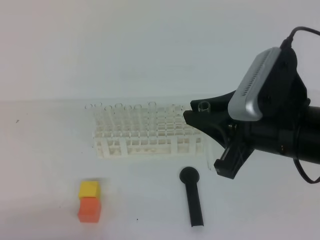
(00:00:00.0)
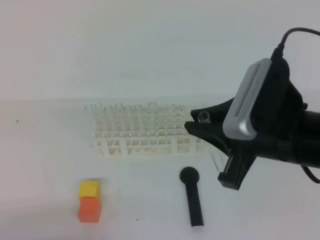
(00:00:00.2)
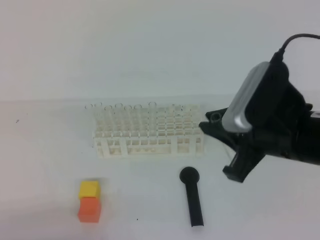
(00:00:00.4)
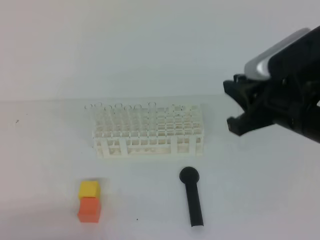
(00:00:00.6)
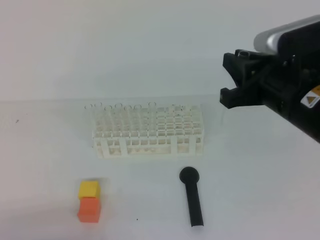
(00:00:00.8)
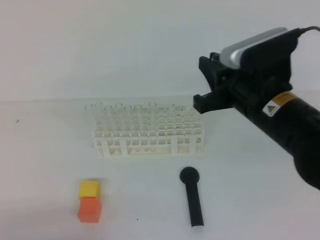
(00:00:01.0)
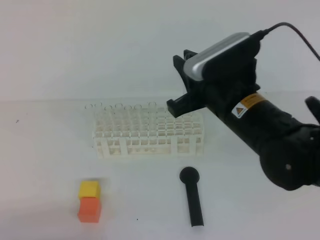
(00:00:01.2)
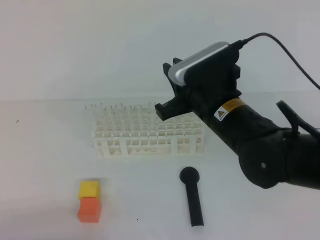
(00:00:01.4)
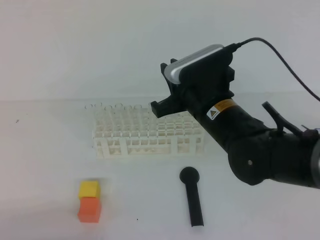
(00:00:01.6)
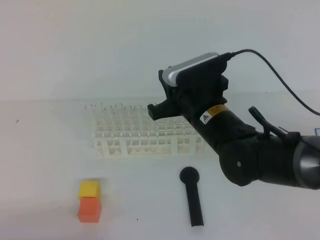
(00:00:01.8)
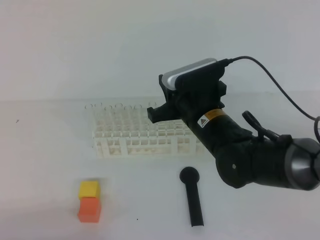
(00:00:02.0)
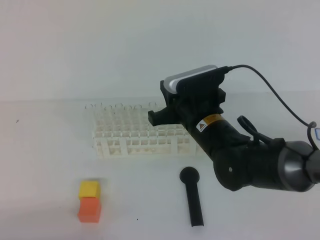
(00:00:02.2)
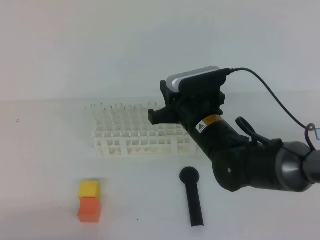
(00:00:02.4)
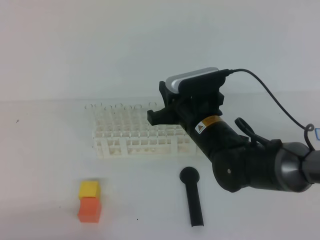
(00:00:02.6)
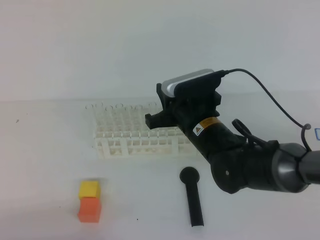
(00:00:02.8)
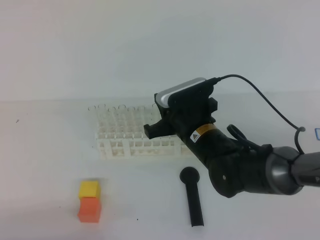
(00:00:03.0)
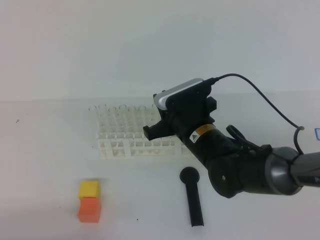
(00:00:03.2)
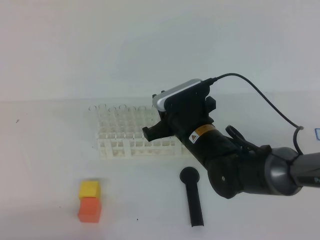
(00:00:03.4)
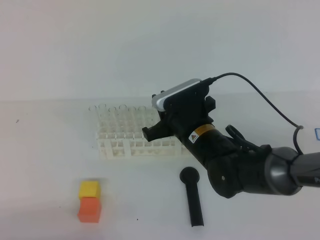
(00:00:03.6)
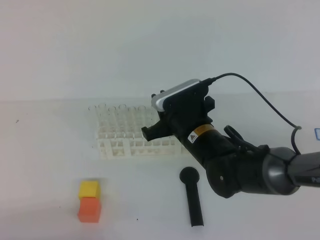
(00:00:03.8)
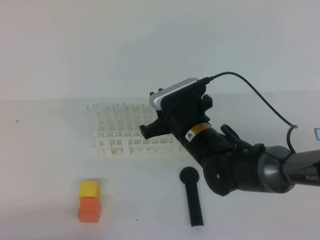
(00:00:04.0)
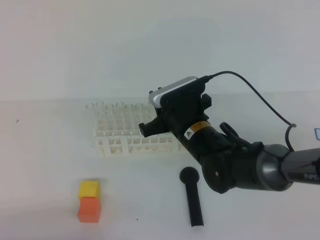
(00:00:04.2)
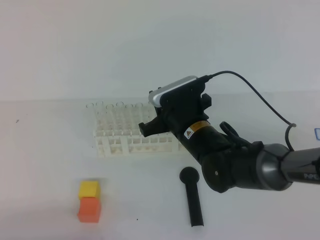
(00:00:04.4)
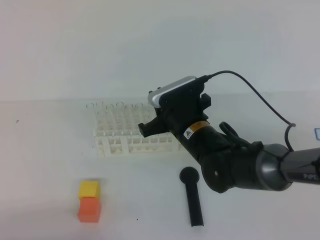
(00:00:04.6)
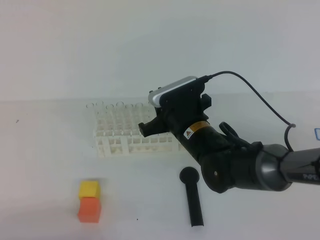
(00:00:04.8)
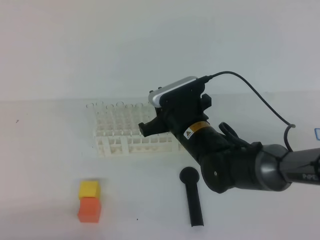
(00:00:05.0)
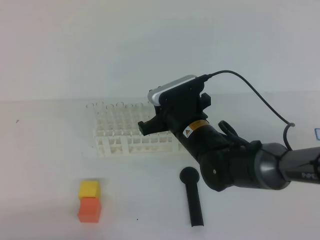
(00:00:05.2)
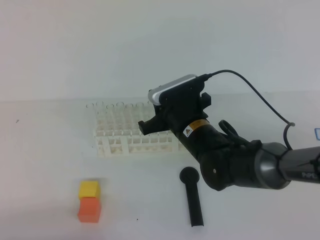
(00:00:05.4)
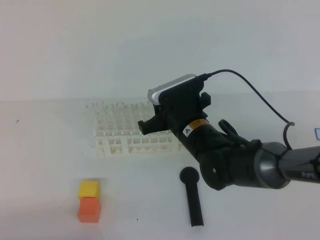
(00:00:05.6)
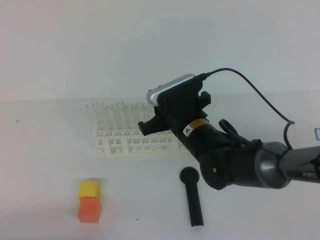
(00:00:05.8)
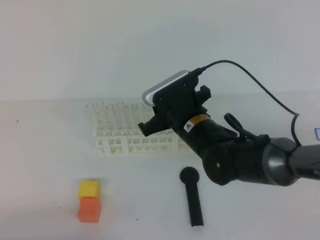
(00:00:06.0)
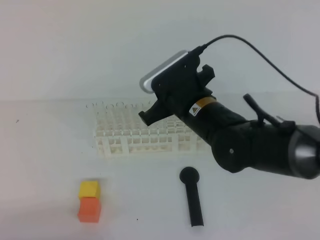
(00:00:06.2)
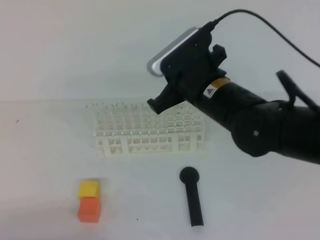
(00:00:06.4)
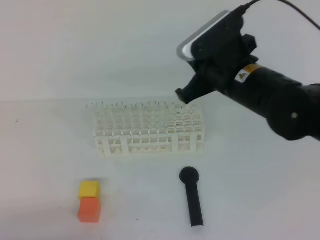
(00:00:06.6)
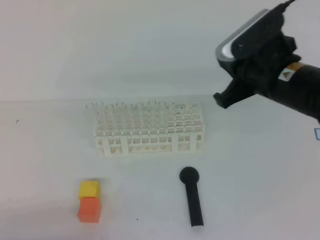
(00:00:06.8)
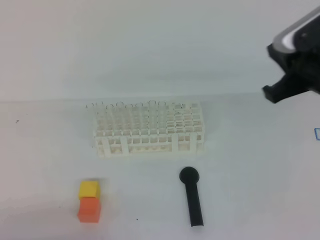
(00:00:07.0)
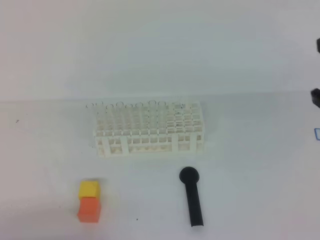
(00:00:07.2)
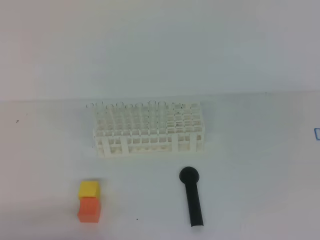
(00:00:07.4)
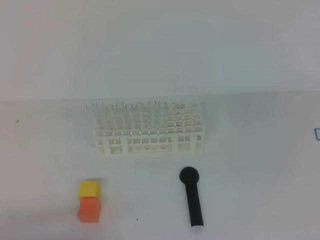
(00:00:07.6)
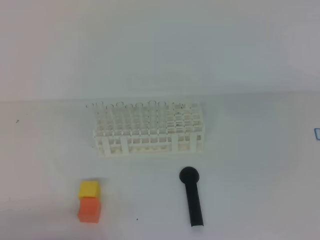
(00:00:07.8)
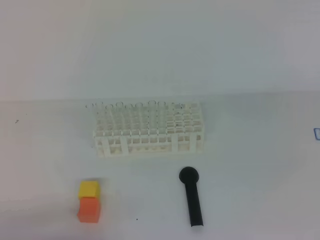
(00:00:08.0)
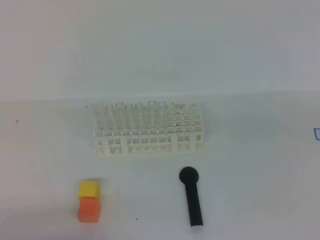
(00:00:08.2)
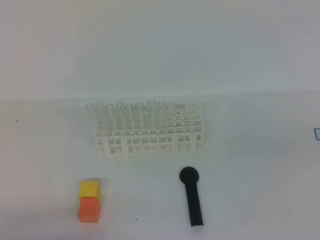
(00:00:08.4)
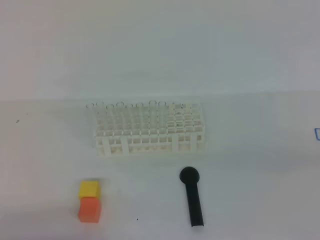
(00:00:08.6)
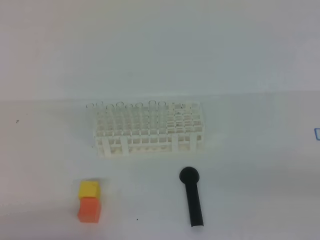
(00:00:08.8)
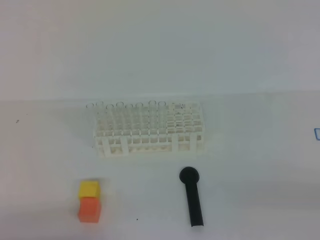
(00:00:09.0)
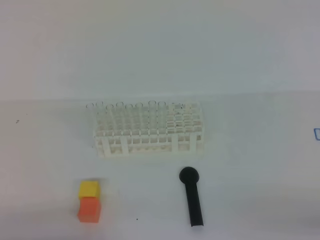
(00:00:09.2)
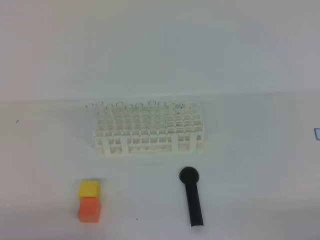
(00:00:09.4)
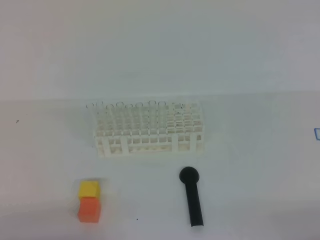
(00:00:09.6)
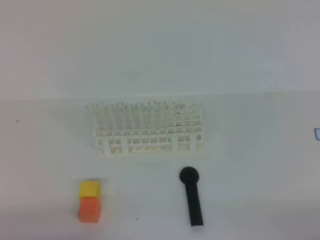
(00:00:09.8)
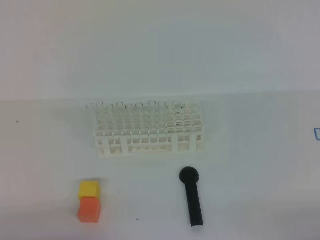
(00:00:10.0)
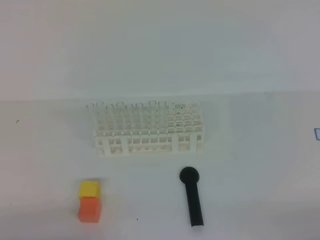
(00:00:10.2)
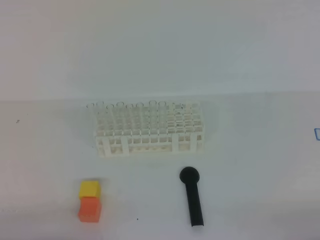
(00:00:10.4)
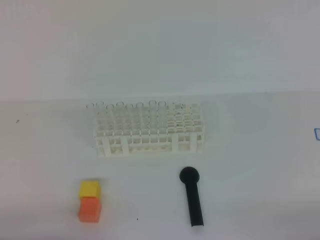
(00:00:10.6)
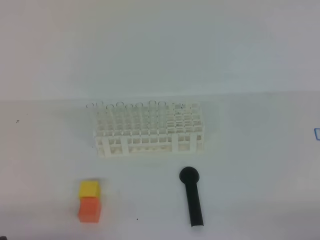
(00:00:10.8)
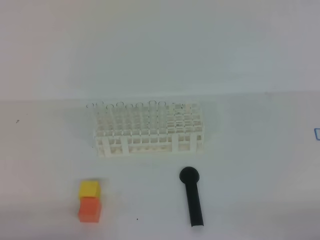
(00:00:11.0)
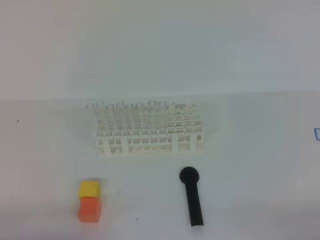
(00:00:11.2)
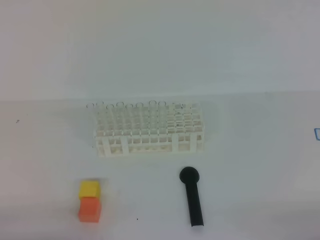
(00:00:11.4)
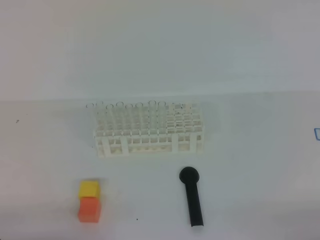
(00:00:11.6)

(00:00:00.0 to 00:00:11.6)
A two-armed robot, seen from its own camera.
00:00:00.0 - 00:00:01.4: The right gripper travels forward and to the left by approximately 10 cm.
00:00:01.4 - 00:00:02.8: The right gripper is displaced downward by about 5 cm.
00:00:02.8 - 00:00:04.4: The grippers stay close to where they were, moving slightly.
00:00:04.4 - 00:00:05.8: Neither gripper changes place.
00:00:05.8 - 00:00:07.2: The right gripper moves to the right, upward and backward, roughly 25 cm, and closes up.
00:00:07.2 - 00:00:08.8: The right gripper travels backward, to the right and downward by some 20 cm.

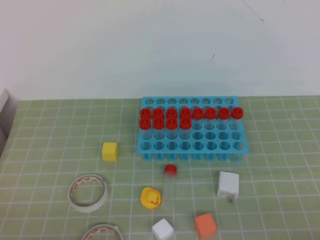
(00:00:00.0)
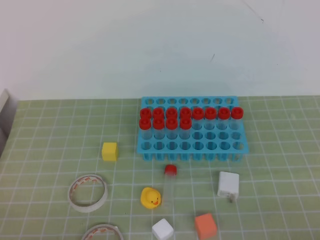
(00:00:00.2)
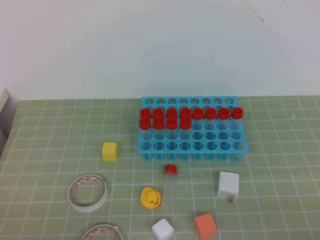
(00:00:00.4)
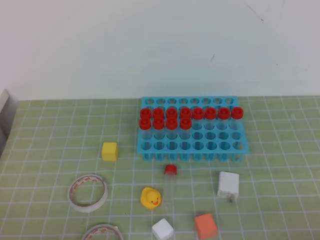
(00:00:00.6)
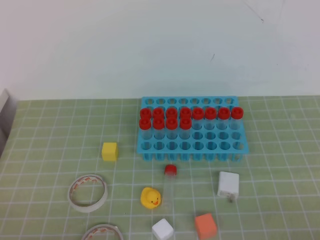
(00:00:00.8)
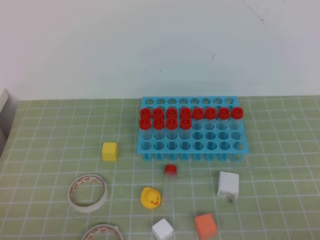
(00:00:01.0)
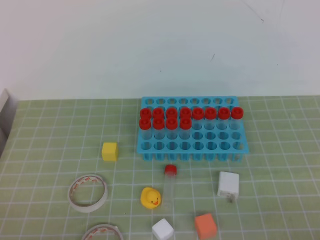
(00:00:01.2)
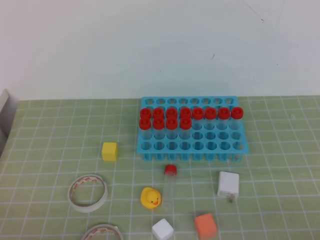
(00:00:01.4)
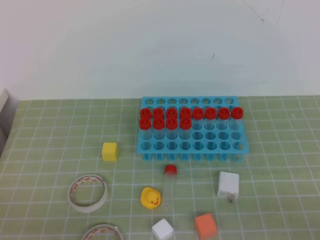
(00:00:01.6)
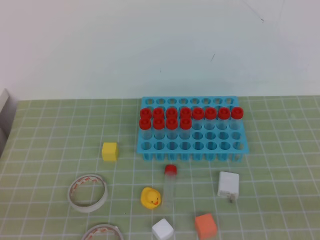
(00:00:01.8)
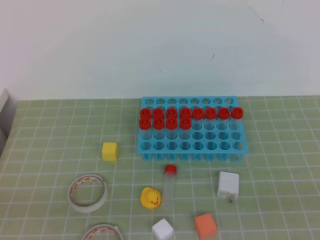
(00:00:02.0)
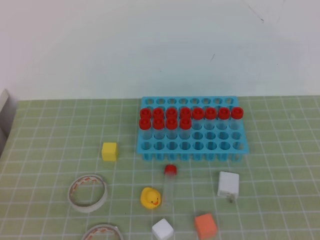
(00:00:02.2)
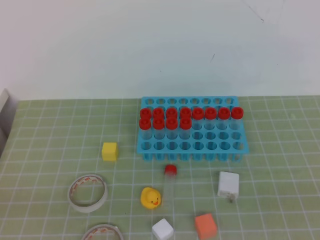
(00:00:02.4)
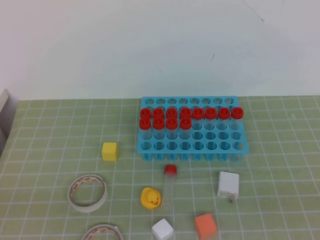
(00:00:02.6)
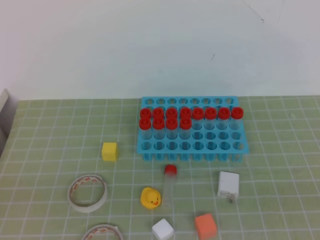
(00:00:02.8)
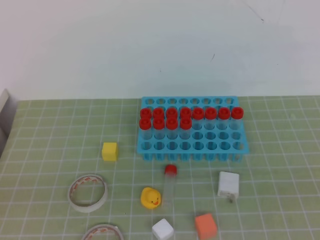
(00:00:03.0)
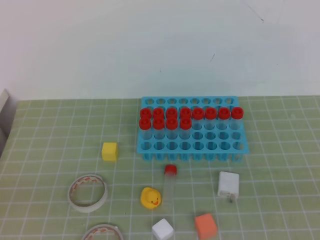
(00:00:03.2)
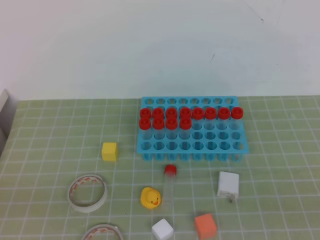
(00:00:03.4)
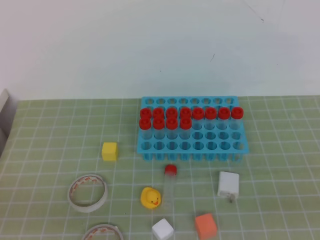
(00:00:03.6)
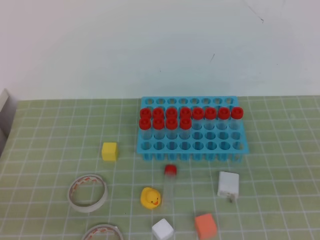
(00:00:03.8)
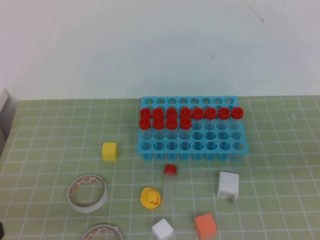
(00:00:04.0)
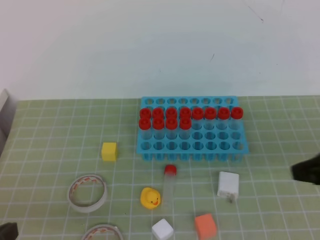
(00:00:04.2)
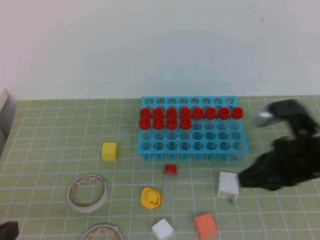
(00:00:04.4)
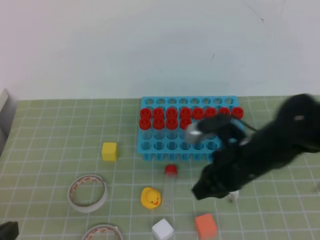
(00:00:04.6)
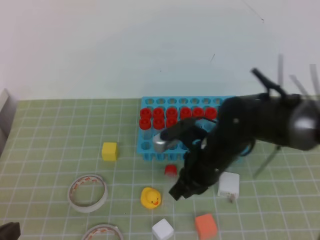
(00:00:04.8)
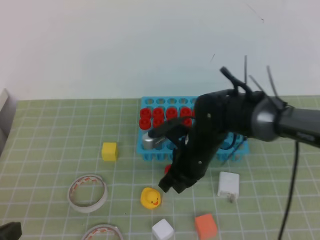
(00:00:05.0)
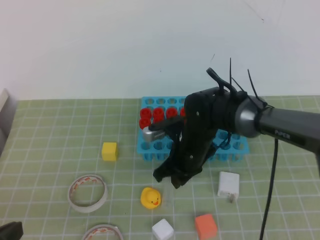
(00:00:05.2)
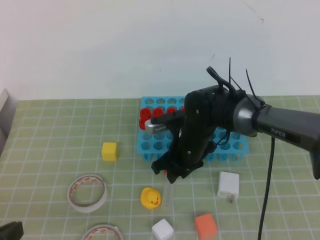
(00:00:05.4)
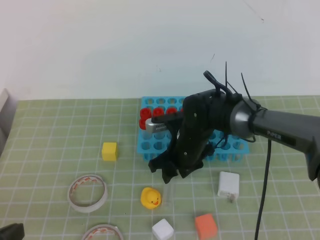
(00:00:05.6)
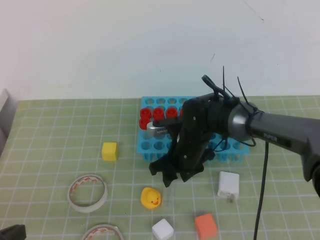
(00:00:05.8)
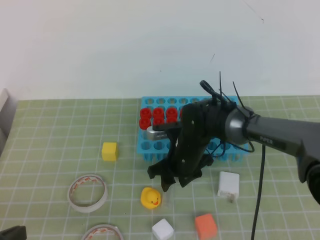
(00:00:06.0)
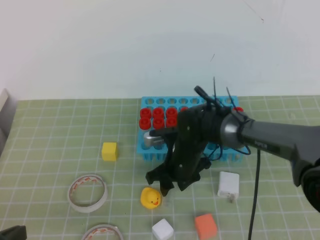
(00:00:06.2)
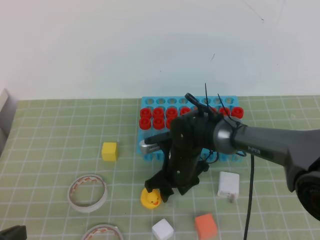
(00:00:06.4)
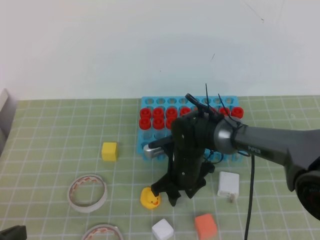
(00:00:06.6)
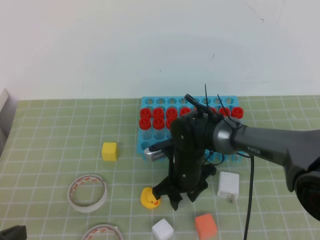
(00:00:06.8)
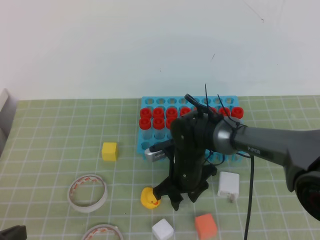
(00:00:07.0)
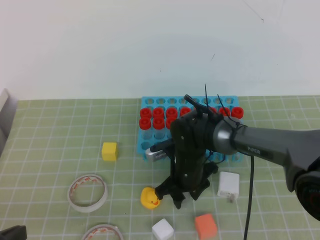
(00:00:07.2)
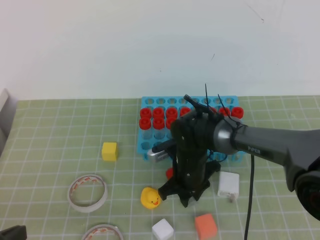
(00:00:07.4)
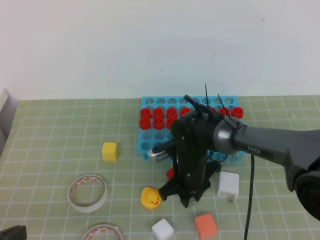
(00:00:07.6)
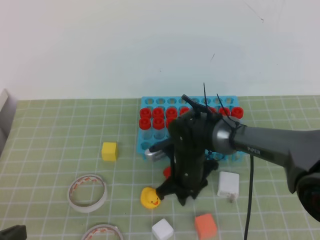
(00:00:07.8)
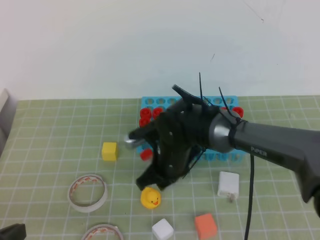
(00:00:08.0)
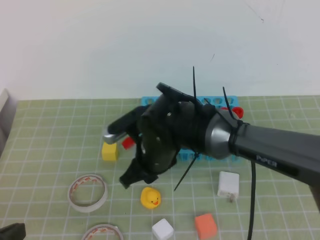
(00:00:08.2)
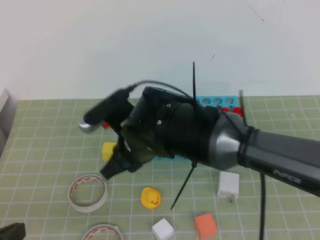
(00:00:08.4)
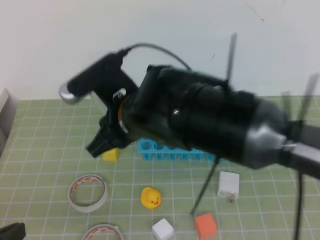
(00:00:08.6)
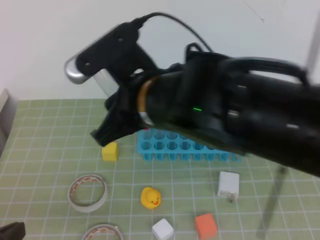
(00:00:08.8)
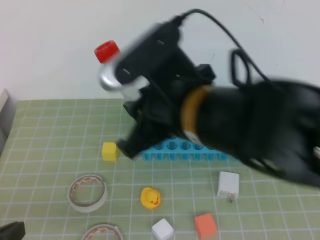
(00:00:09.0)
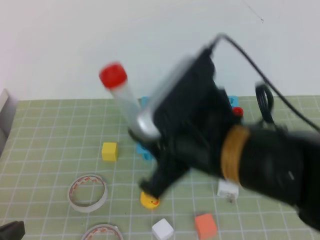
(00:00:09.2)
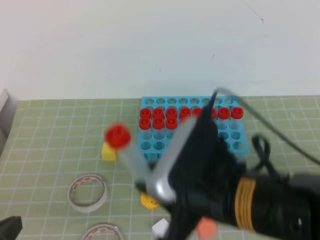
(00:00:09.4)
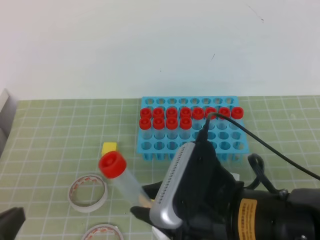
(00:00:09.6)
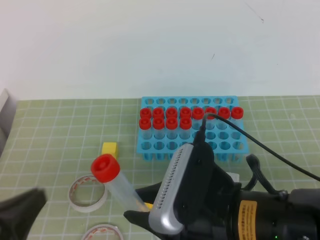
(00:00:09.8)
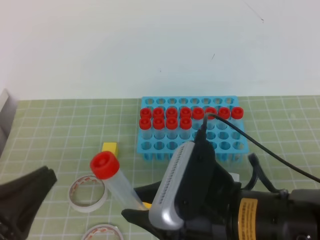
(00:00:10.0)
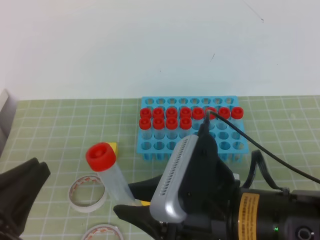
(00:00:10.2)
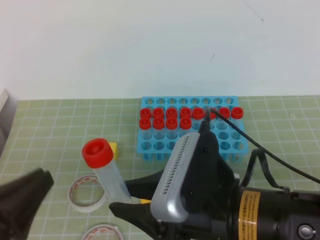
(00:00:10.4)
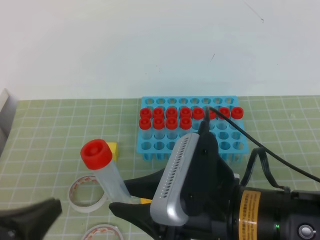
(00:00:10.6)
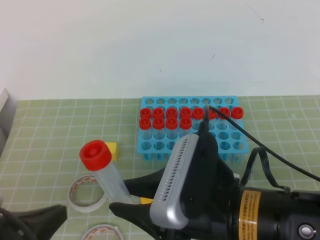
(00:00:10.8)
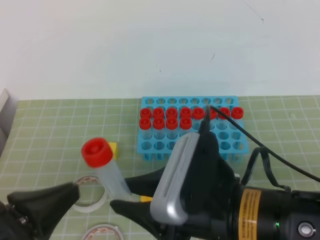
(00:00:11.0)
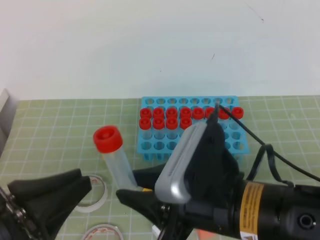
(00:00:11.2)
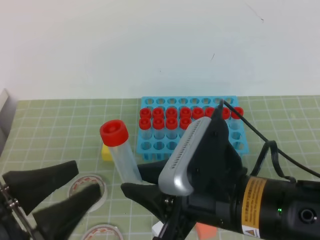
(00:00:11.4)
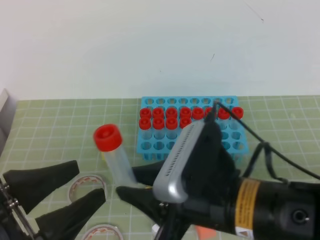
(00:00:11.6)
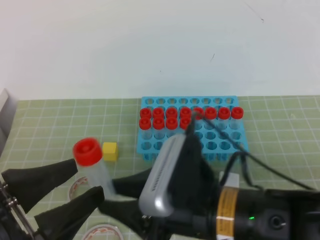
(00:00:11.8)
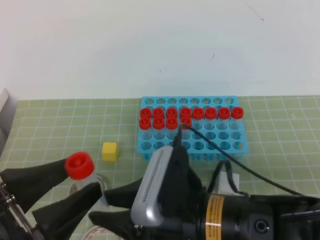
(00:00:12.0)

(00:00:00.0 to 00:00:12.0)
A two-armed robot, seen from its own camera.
00:00:03.0 - 00:00:04.4: The right gripper moves forward and to the left, approximately 25 cm.
00:00:04.4 - 00:00:06.0: The right gripper heads to the left, downward and forward, covering roughly 25 cm, and opens.
00:00:06.0 - 00:00:07.6: The right gripper closes up.
00:00:07.6 - 00:00:09.0: The right gripper shifts some 30 cm upward and backward.
00:00:09.0 - 00:00:10.4: The right gripper travels backward and downward by roughly 10 cm.
00:00:10.4 - 00:00:12.0: The left gripper opens.
